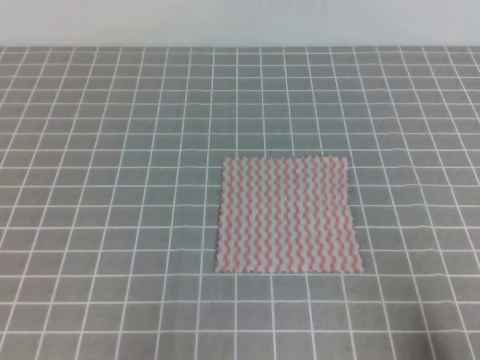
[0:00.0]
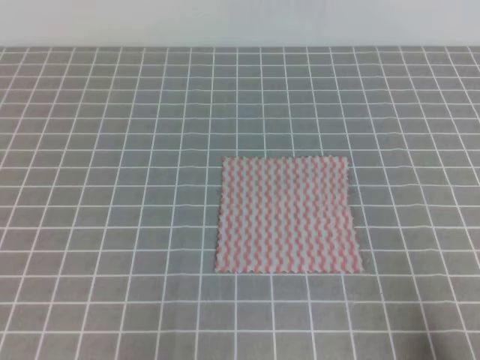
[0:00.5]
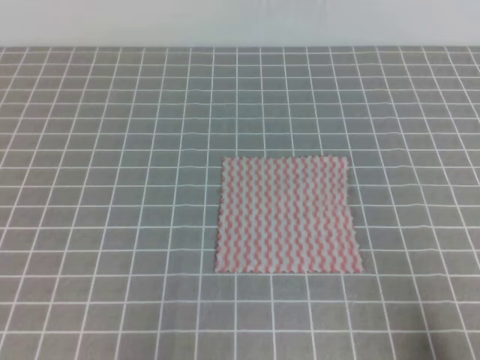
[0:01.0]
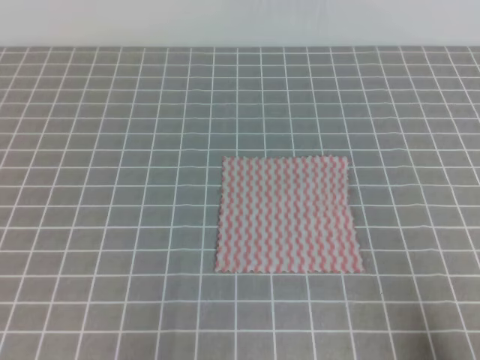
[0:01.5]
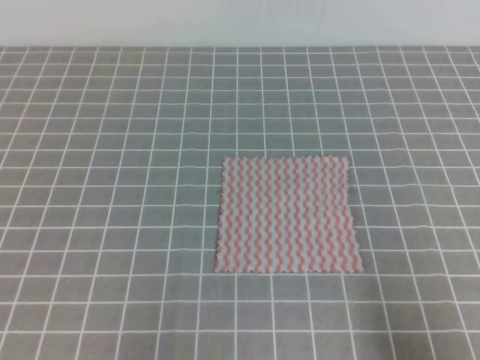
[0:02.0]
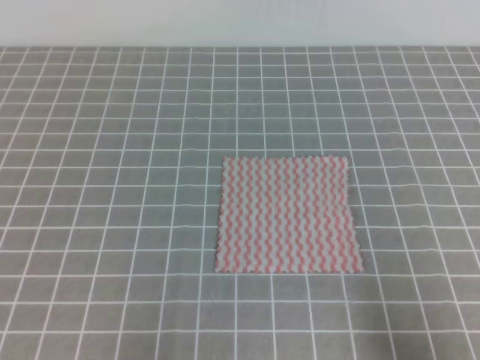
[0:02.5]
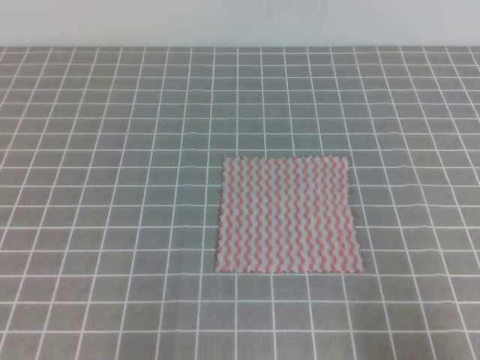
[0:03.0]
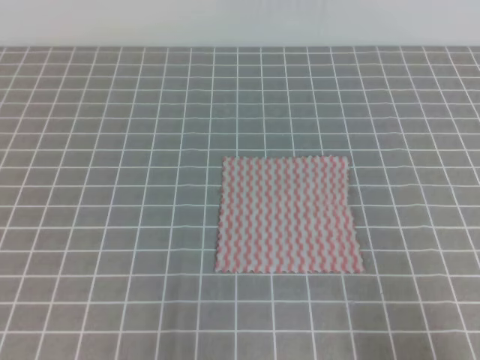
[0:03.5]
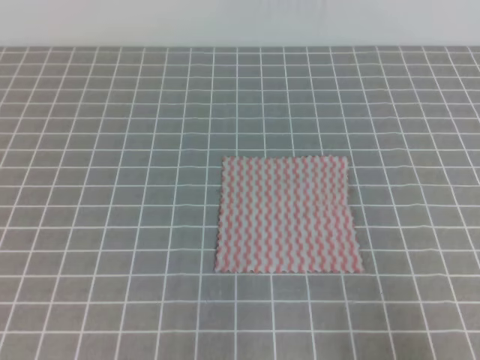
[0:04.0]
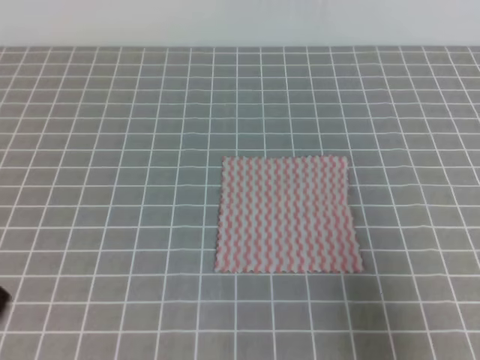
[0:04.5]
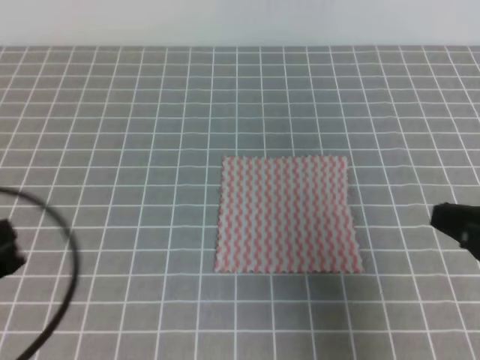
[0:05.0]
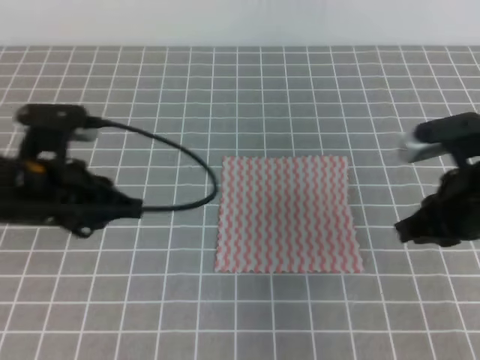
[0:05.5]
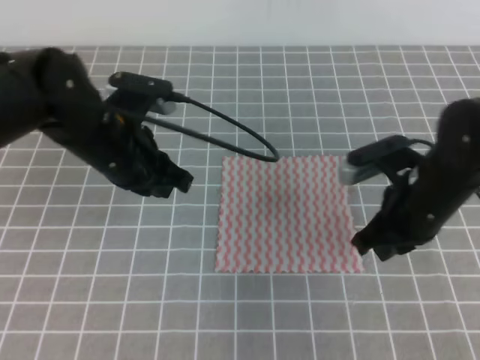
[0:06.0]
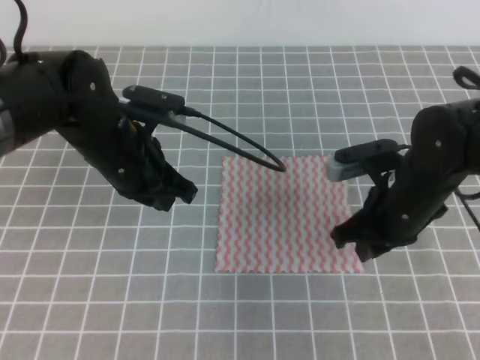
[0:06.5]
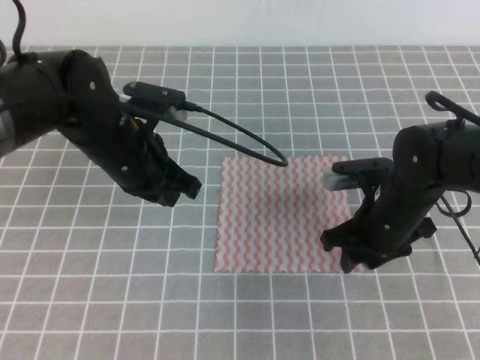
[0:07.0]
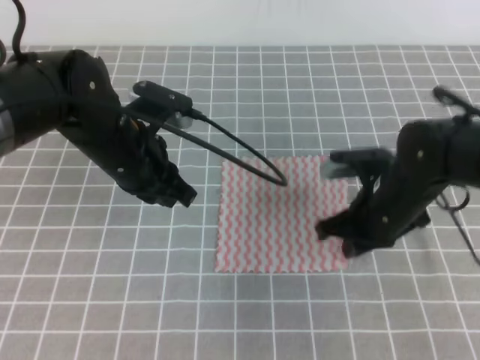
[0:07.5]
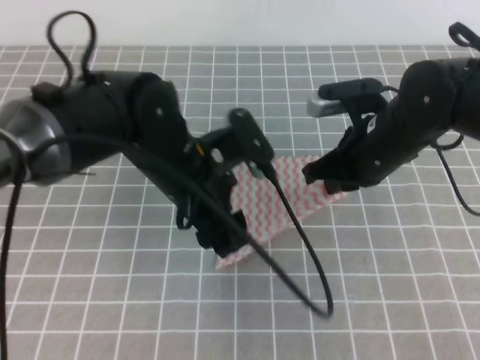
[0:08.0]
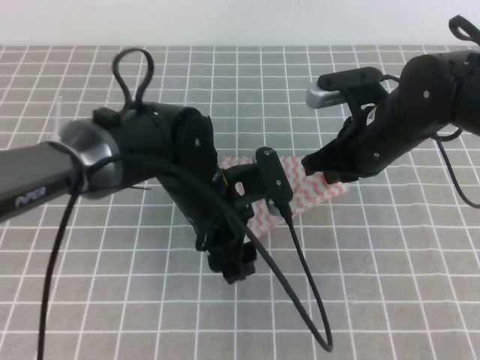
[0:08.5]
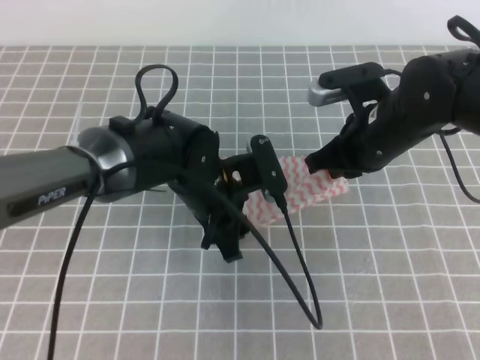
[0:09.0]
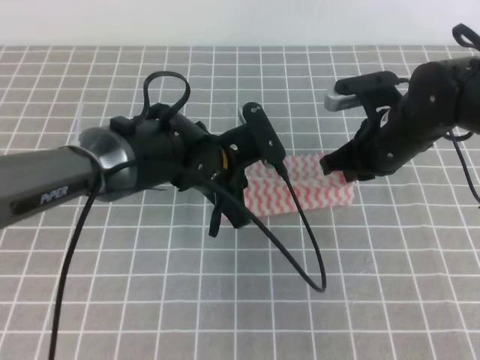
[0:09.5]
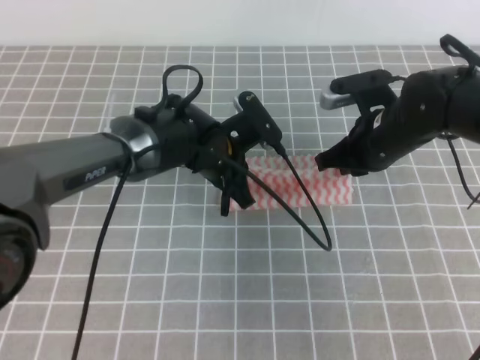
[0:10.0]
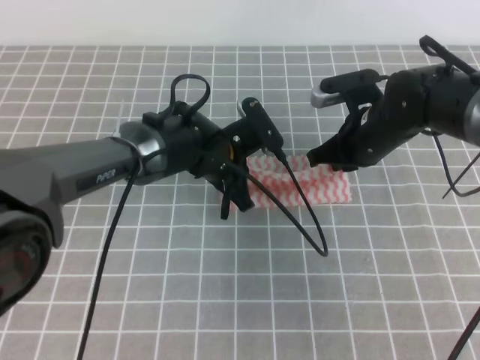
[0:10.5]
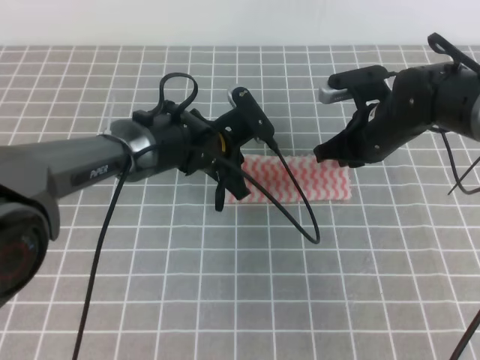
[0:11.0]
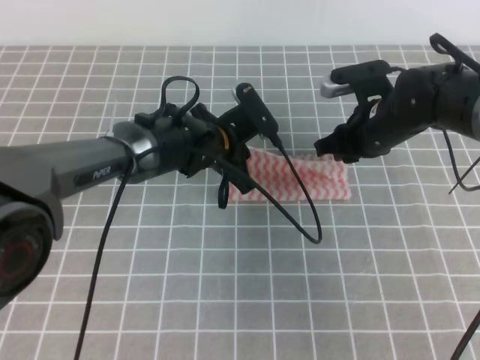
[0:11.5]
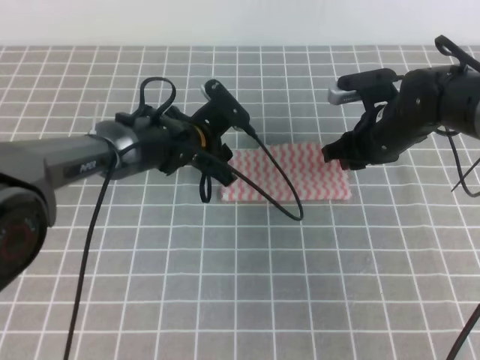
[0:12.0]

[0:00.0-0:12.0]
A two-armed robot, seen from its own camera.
0:04.0 to 0:06.0: The left gripper moves forward and to the right, approximately 30 cm, while the right gripper heads forward, covering approximately 25 cm.
0:06.0 to 0:08.0: The right gripper goes about 5 cm forward, and opens, then closes again; the left gripper travels to the right by some 5 cm, and opens up.
0:08.0 to 0:10.0: The left gripper travels forward and downward by roughly 10 cm, and closes its fingers.
0:10.0 to 0:12.0: The right gripper opens; the left gripper shifts by about 5 cm, and opens its fingers.

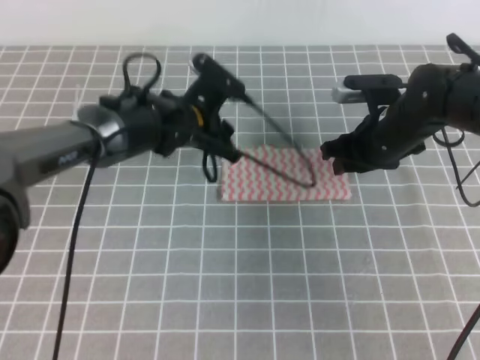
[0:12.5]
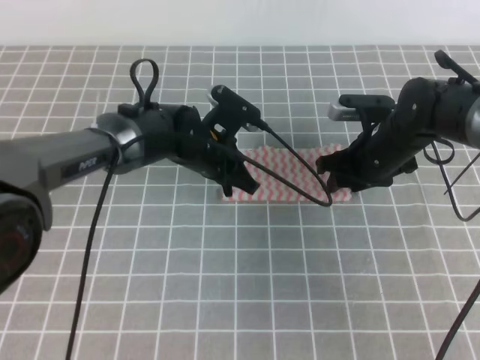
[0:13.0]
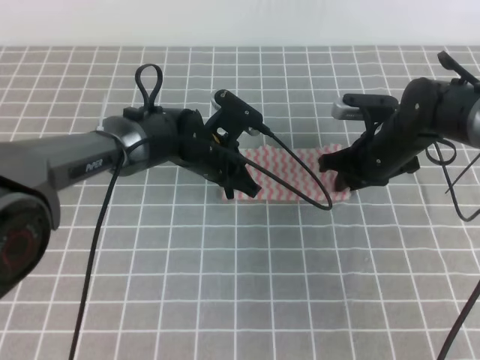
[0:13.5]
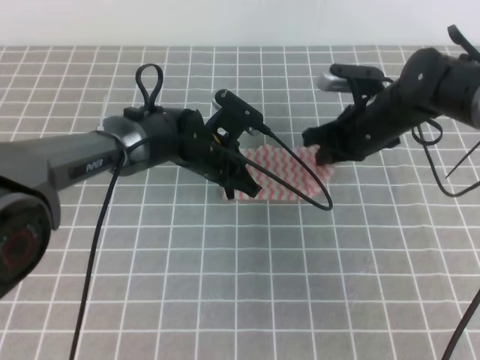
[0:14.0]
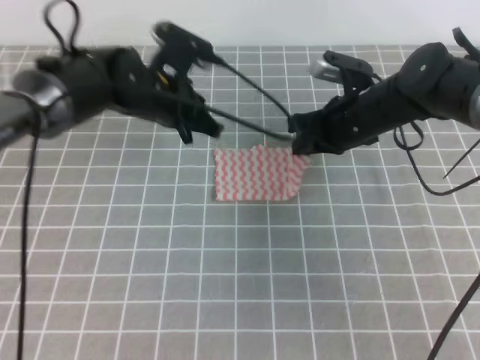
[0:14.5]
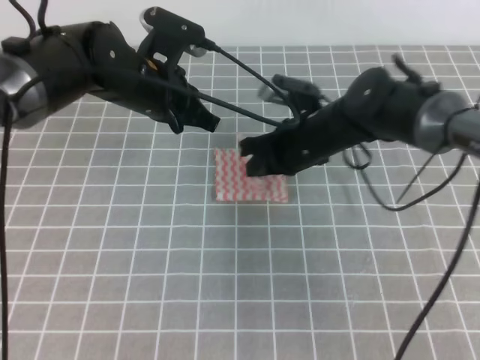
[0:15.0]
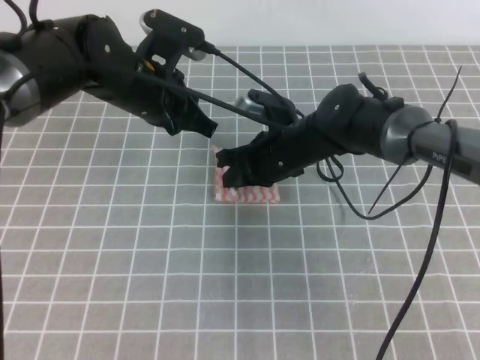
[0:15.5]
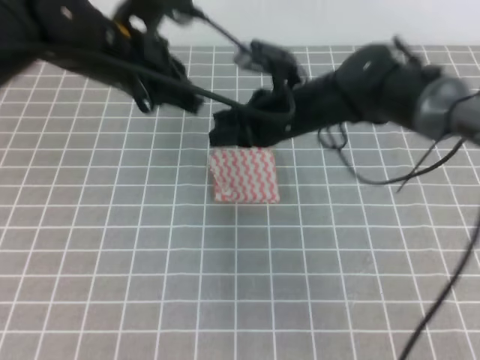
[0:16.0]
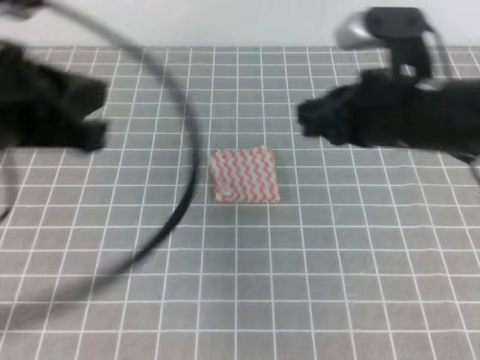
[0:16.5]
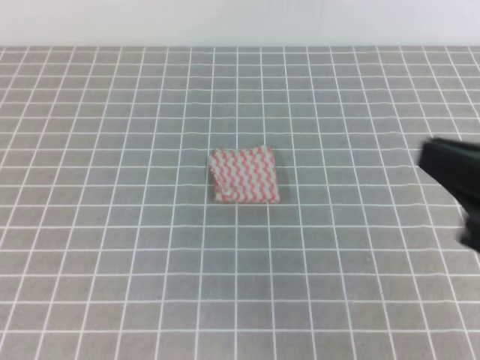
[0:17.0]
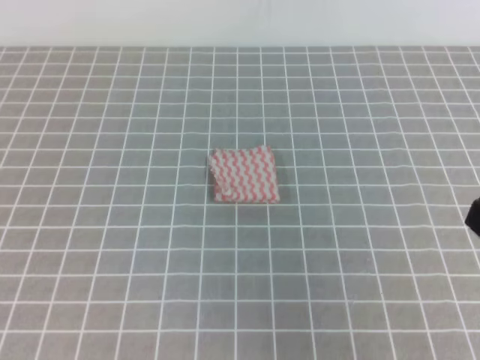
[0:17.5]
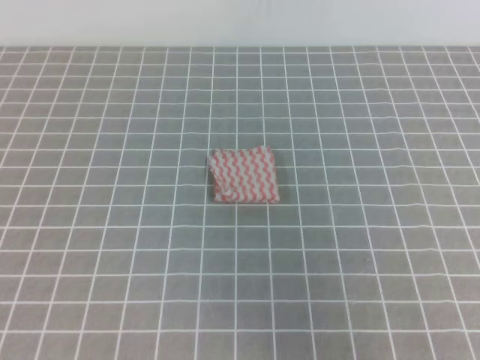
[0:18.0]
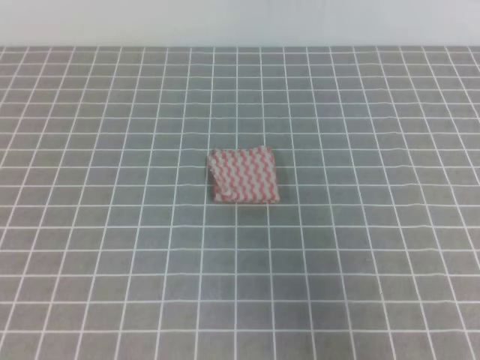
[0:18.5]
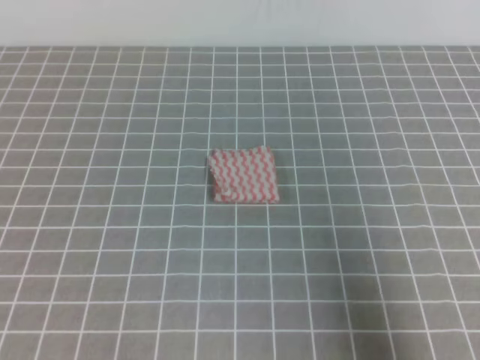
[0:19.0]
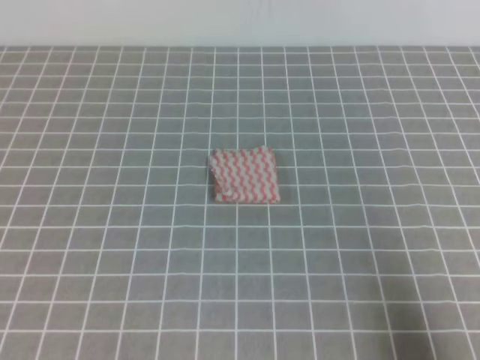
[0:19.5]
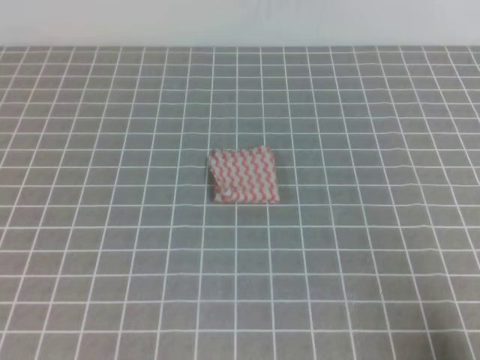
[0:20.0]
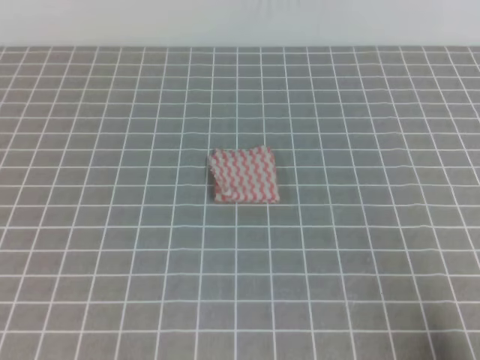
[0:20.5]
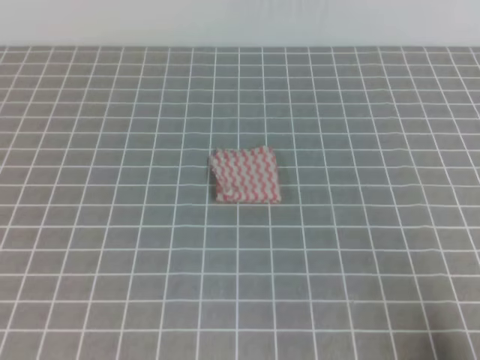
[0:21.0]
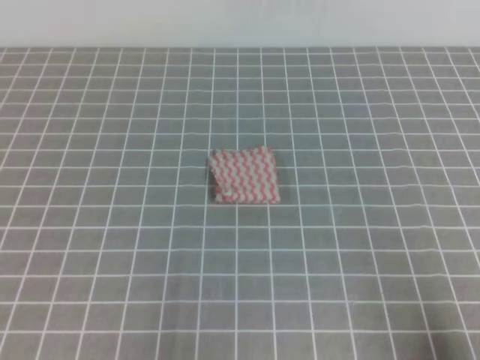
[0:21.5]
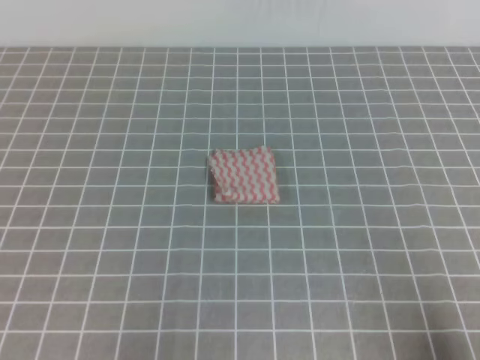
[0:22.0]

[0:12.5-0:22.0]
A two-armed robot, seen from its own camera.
Step, 0:12.5 to 0:22.0: Fold the towel.
0:12.5 to 0:14.5: The right gripper closes up. The left gripper closes its fingers.
0:14.5 to 0:16.5: The left gripper heads backward, upward and to the left, covering about 25 cm. Meanwhile the right gripper travels upward and backward by some 15 cm, and opens, then closes once more.
0:16.5 to 0:18.0: The right gripper shifts approximately 25 cm backward and to the right; the left gripper is displaced backward, downward and to the left by roughly 25 cm.
0:18.0 to 0:20.0: The right gripper goes approximately 15 cm downward and to the right.
